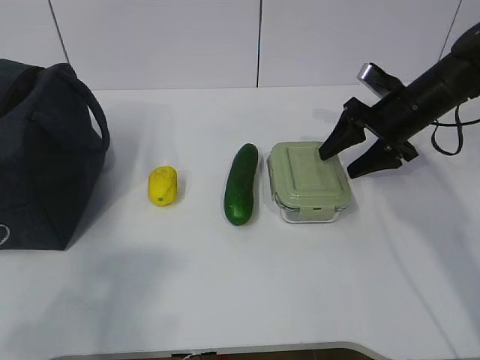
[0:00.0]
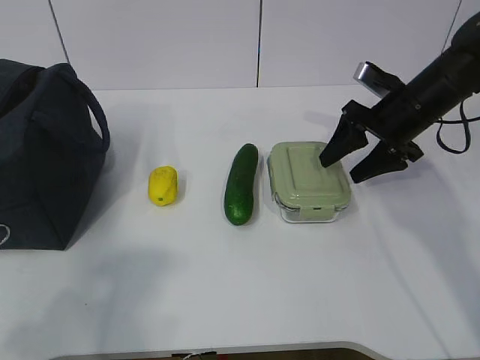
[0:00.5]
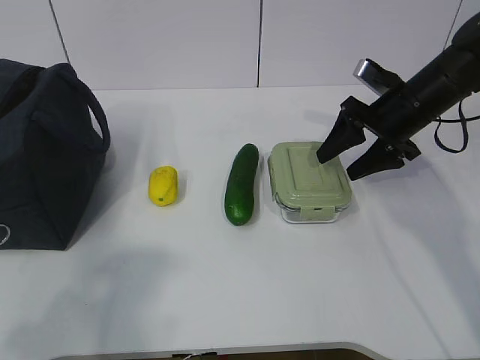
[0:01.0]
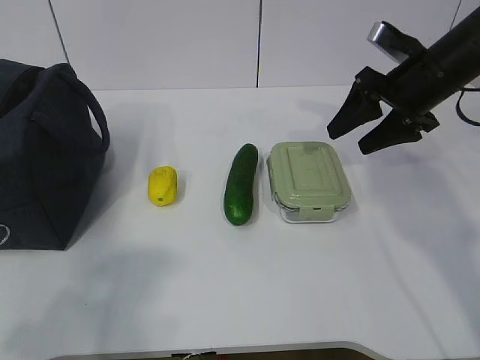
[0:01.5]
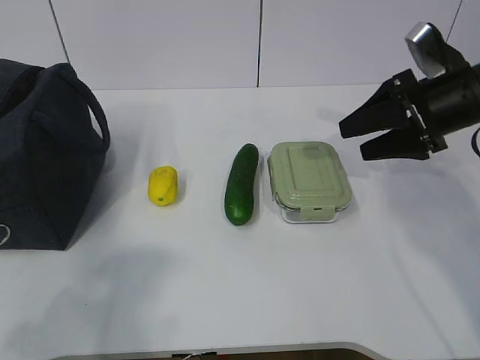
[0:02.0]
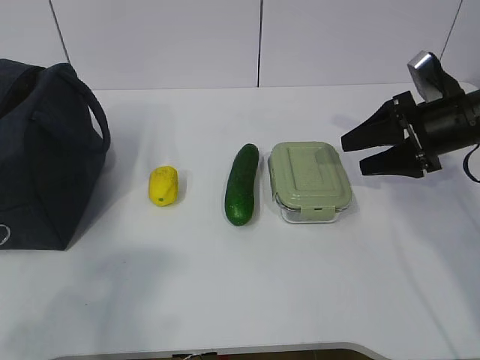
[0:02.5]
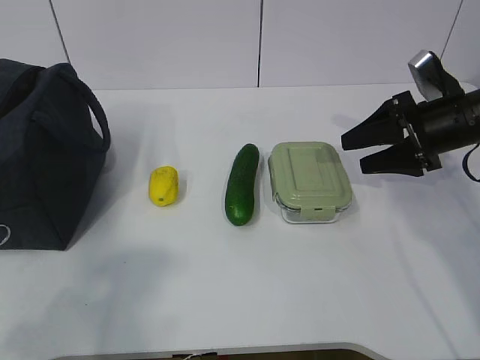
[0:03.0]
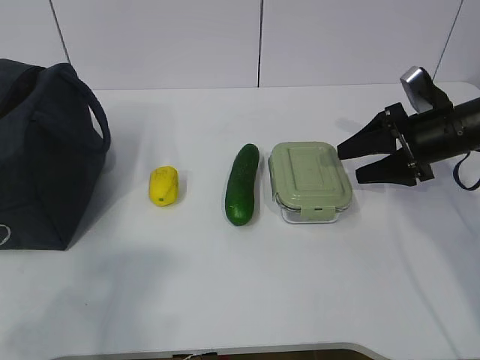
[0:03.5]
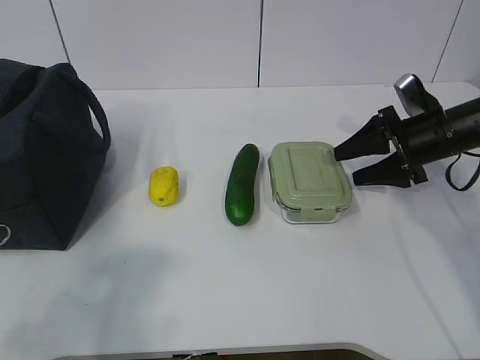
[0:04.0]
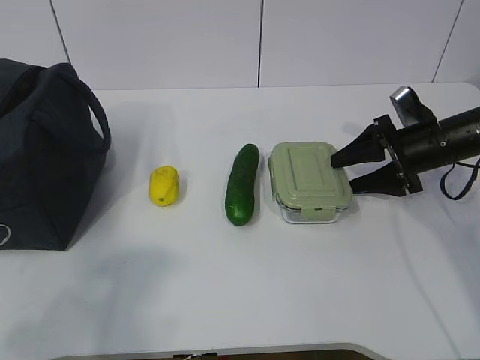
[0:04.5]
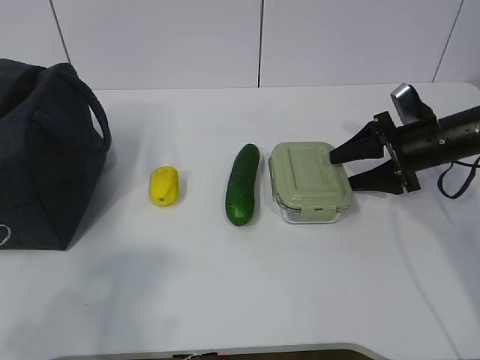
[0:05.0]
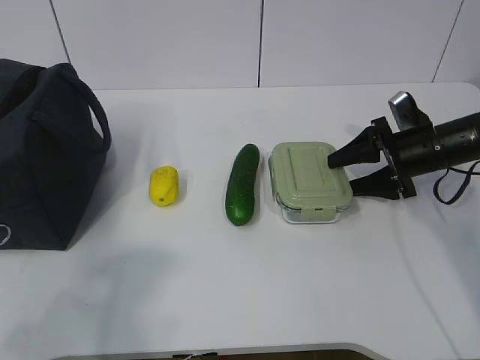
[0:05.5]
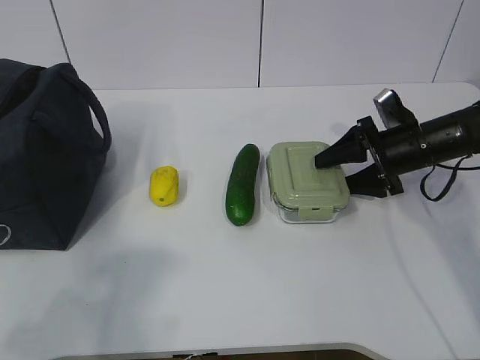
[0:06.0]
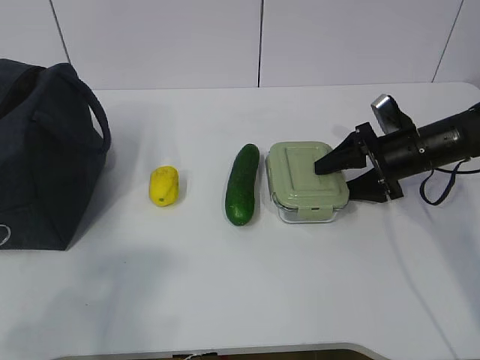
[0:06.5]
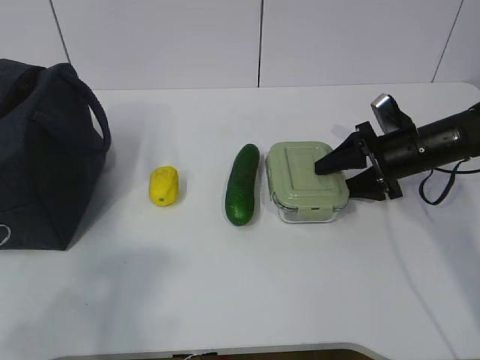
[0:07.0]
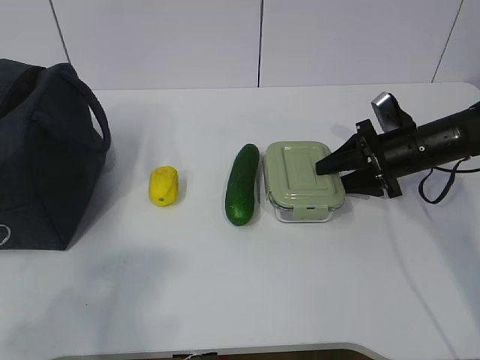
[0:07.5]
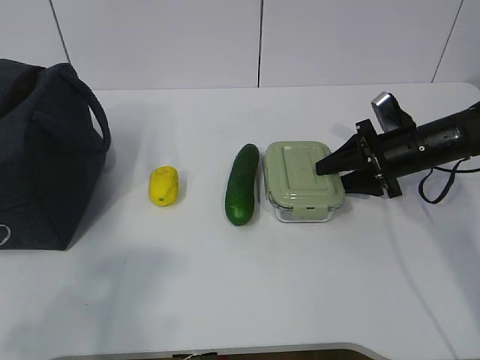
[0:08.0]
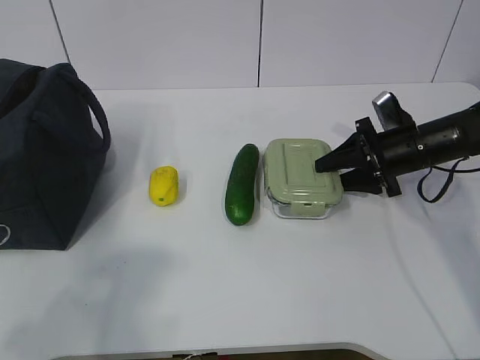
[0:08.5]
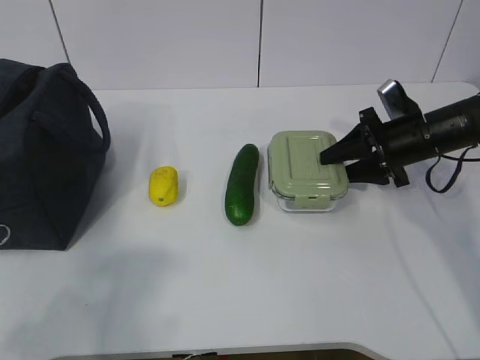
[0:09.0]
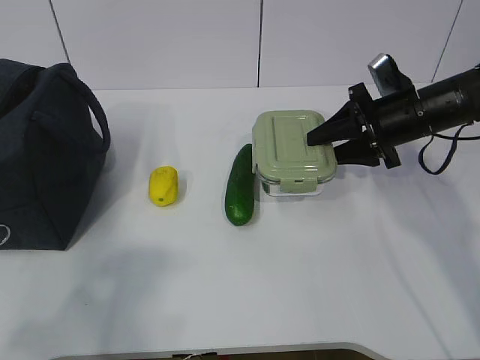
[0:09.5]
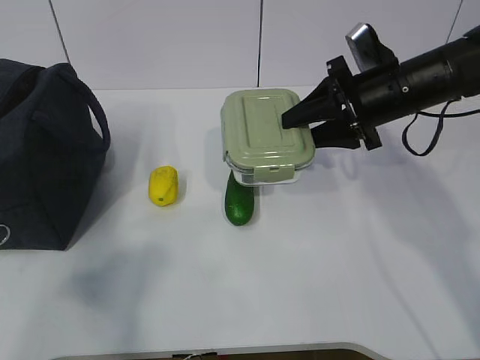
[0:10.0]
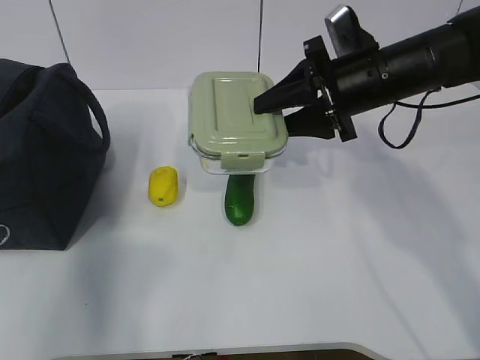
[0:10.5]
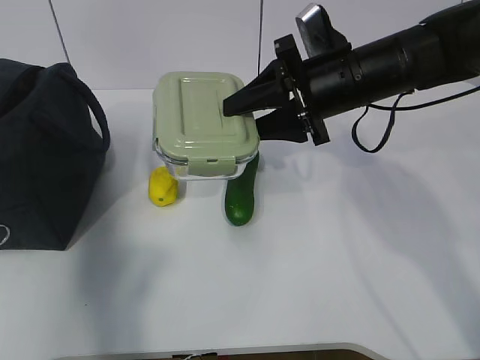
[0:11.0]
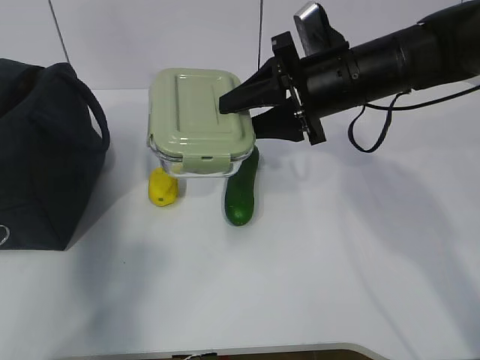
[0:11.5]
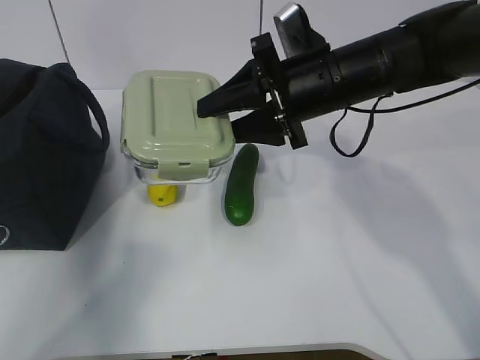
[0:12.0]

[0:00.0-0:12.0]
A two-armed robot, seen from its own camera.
Step, 0:00.0 to 0:04.0: Grab the lunch box with your right hand.
0:00.0 to 0:02.0: The right gripper travels backward and upward by about 10 cm.
0:02.0 to 0:04.0: The right gripper moves downward, approximately 10 cm.
0:04.0 to 0:06.0: The grippers stay close to where they were, moving slightly.
0:06.0 to 0:08.0: The two grippers keep their place.
0:08.0 to 0:10.0: The left gripper moves approximately 5 cm. Meanwhile the right gripper is displaced upward and to the left by approximately 10 cm.
0:10.0 to 0:12.0: The left gripper heads forward, covering approximately 35 cm; the right gripper shifts some 10 cm to the left.

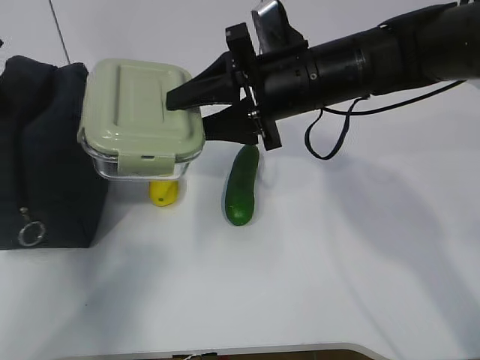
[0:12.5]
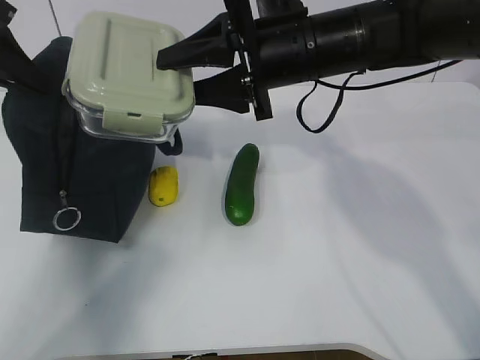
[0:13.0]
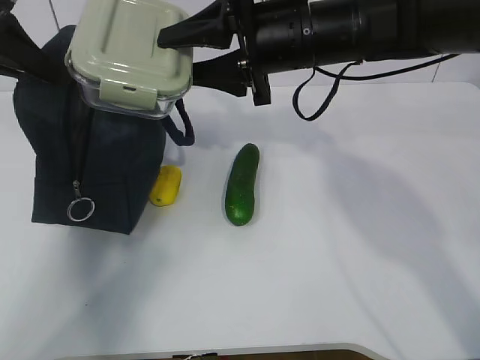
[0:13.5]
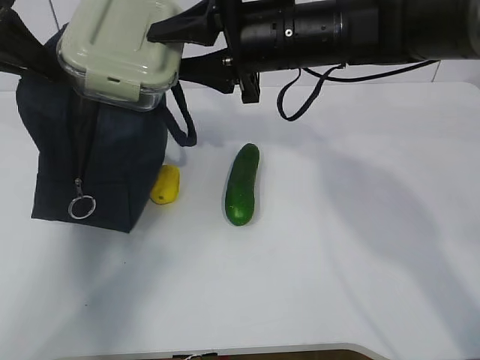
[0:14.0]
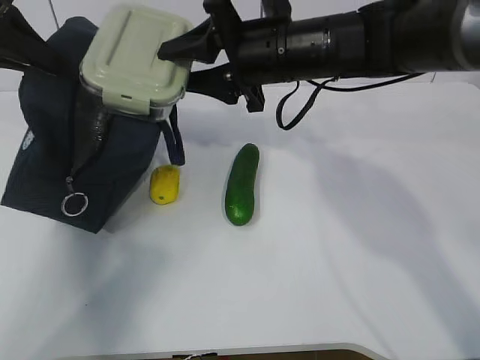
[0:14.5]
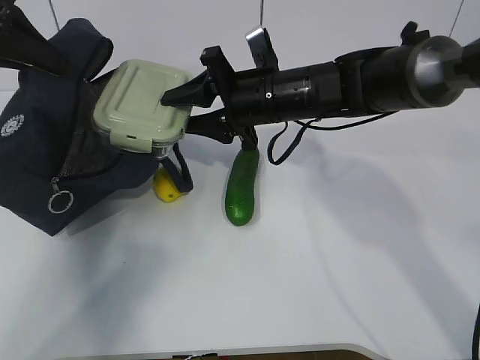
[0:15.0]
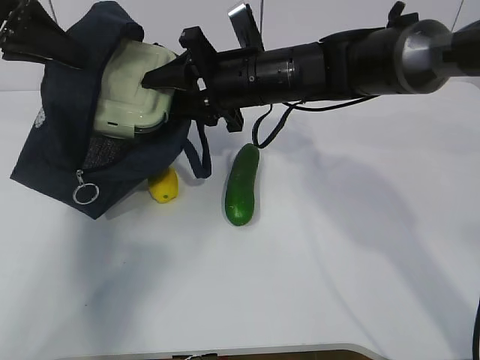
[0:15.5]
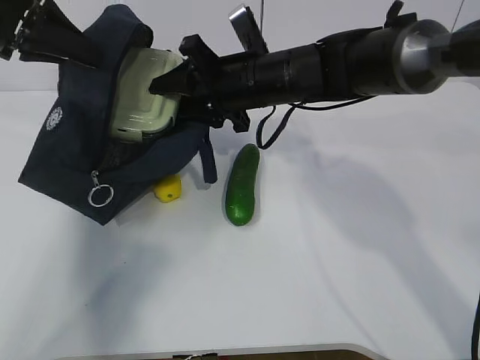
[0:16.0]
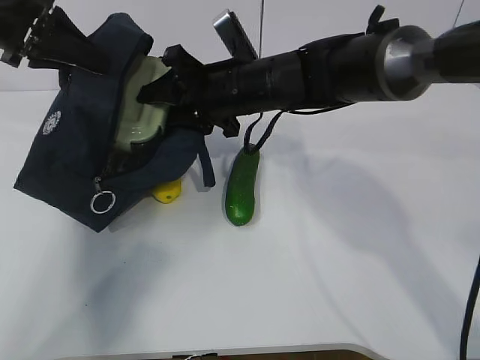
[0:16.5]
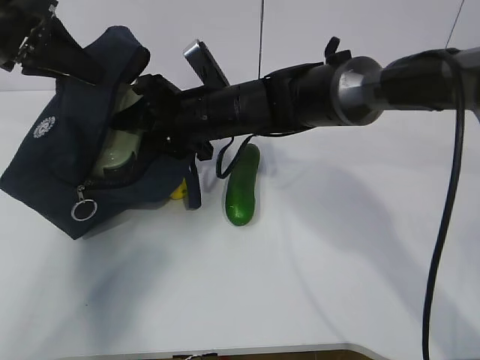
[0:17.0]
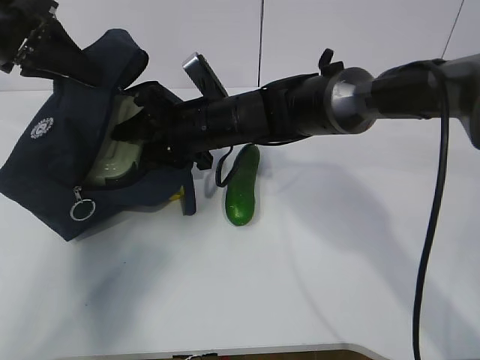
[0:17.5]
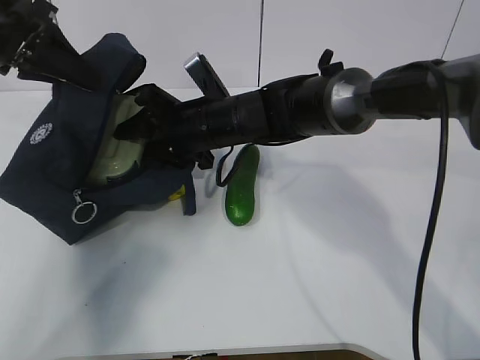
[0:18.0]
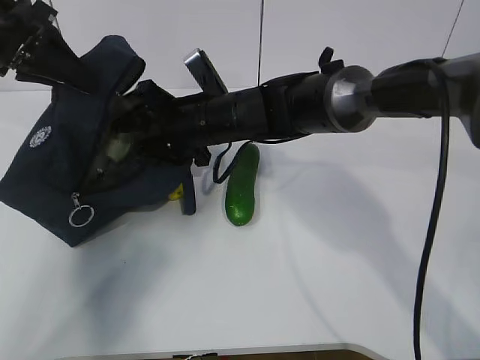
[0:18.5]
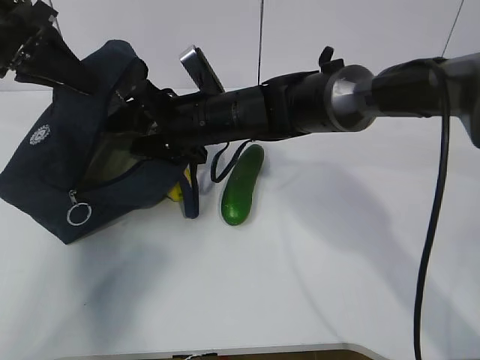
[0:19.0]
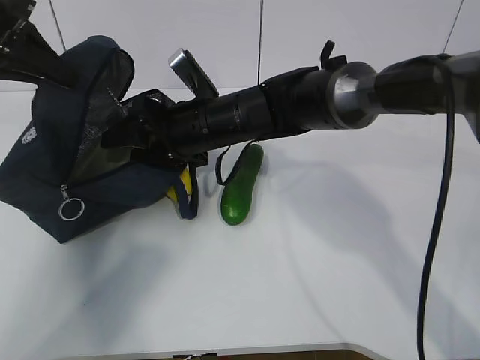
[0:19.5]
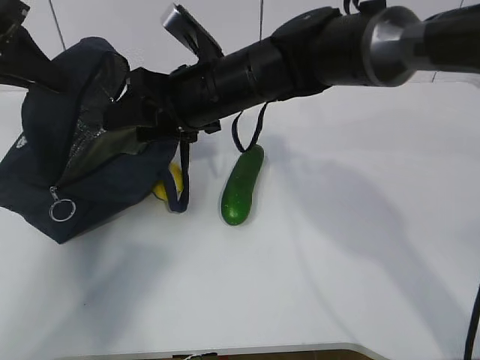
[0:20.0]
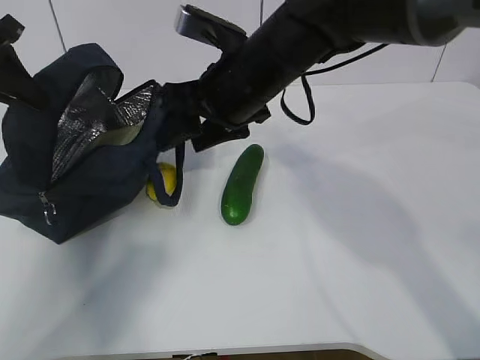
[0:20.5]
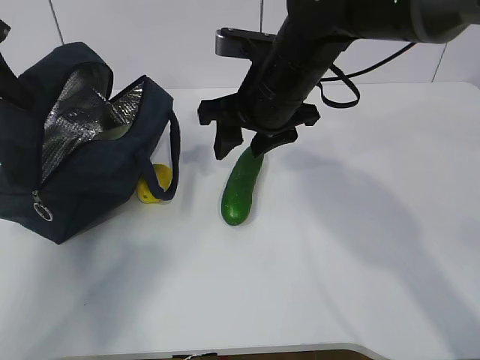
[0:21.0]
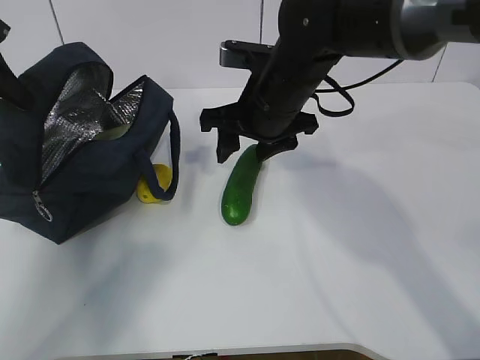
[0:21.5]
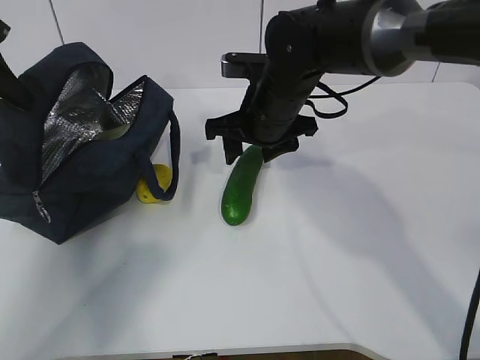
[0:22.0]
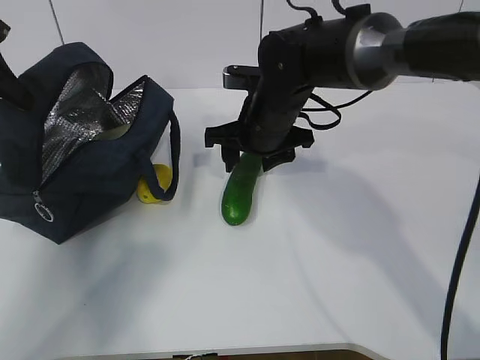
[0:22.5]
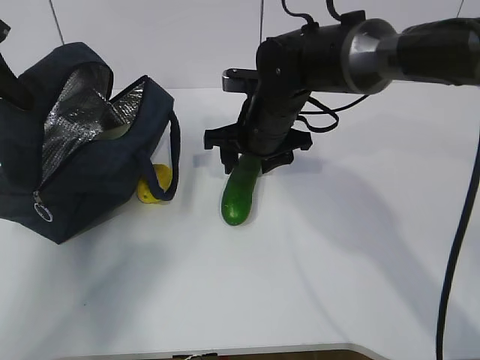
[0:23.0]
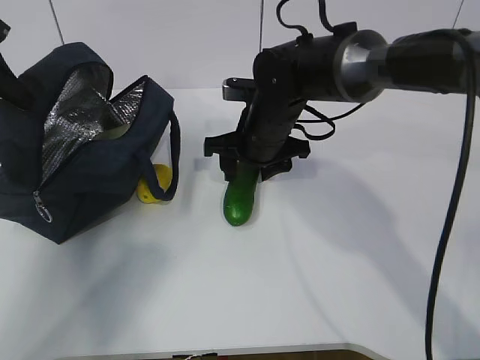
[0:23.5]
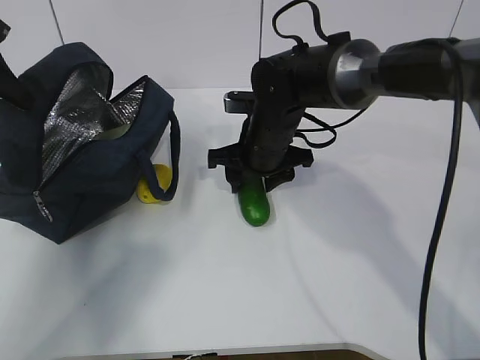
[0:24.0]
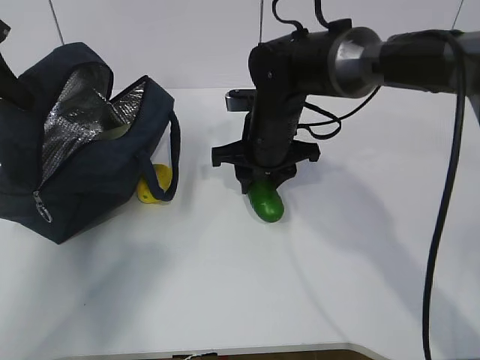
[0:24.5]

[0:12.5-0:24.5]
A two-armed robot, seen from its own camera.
Step, 0:13.0 to 0:17.0: Grab the cucumber with your right hand.
Step, 0:17.5 to 0:19.5: Place it into the bag with your right hand.
Step, 0:20.0 to 0:23.5: Grab the lemon with your right hand.
0:14.5 to 0:16.5: The right gripper shifts by some 5 cm.
0:16.5 to 0:18.5: The right gripper shifts by roughly 5 cm.
0:18.5 to 0:20.5: The right gripper moves upward, some 10 cm.
0:20.5 to 0:22.5: The right gripper moves downward, roughly 5 cm.
0:22.5 to 0:24.5: The grippers stay close to where they were, moving slightly.

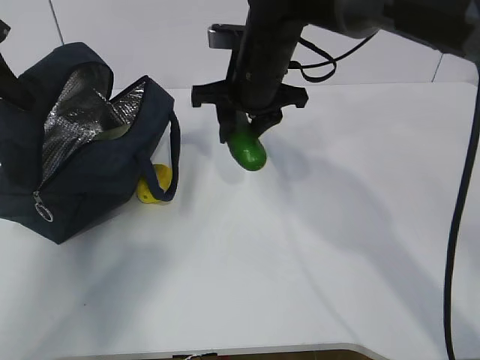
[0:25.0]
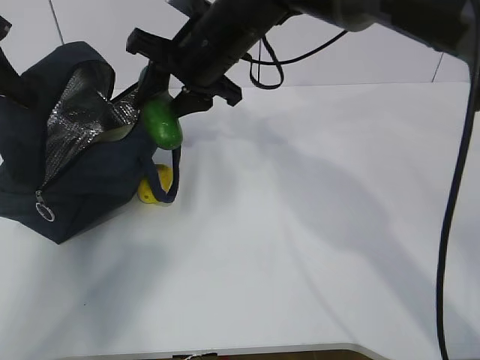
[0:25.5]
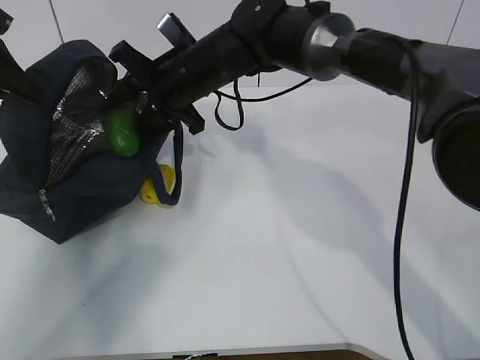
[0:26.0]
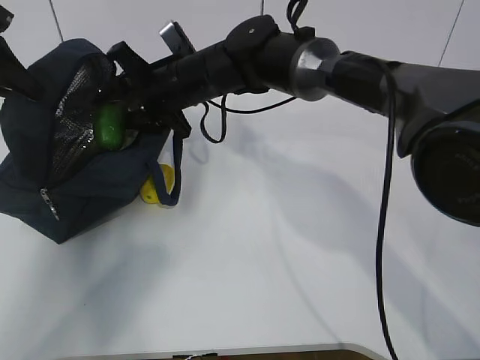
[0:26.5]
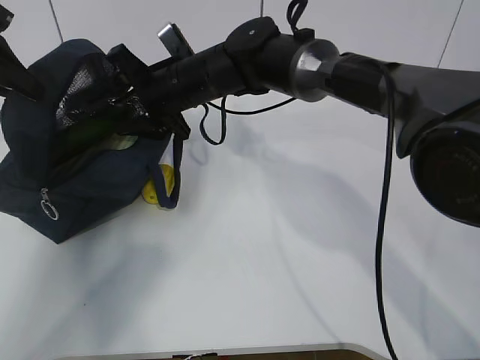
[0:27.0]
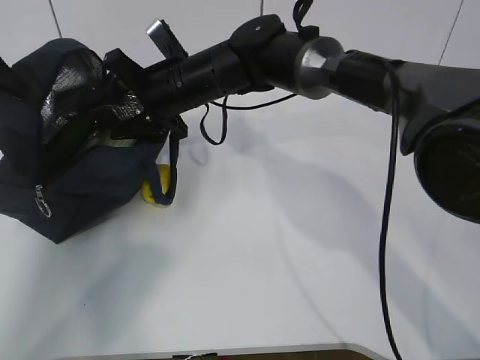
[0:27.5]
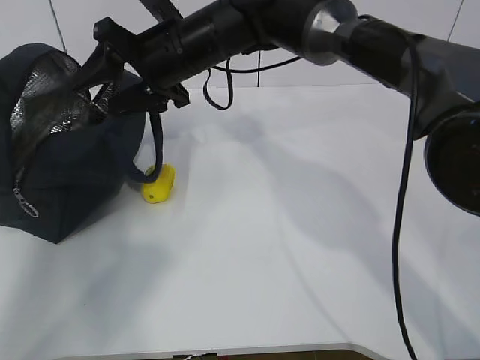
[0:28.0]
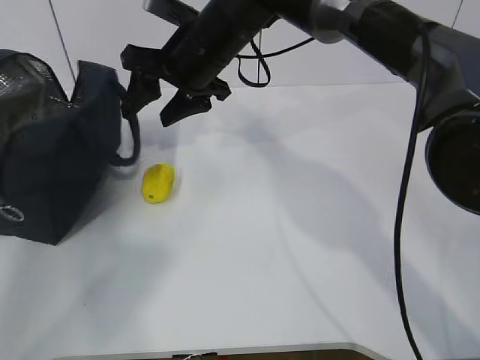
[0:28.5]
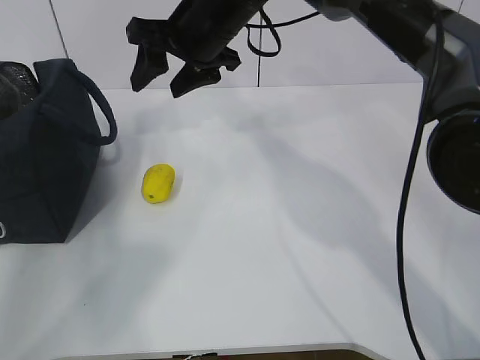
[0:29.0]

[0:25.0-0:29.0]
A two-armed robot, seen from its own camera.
Step, 0:26.5 to 0:28.0: Grab the lunch bag with your right hand.
0:25.0 to 0:27.0: The right gripper moves to the left, approximately 10 cm.
0:27.0 to 0:29.0: The left gripper goes approximately 10 cm to the left, while the right gripper shifts about 10 cm upward.
